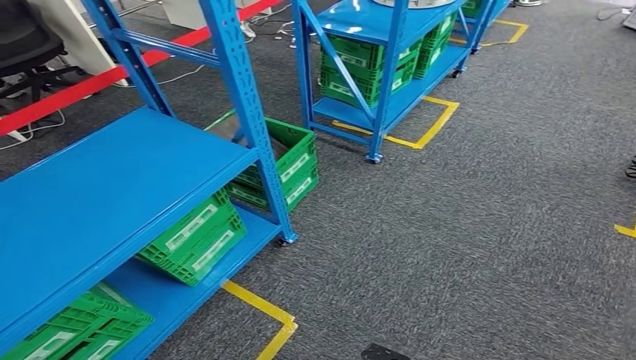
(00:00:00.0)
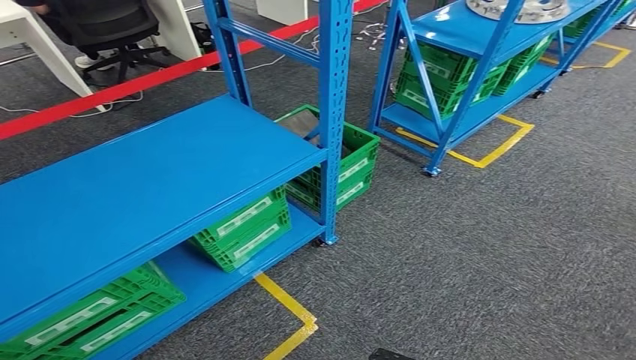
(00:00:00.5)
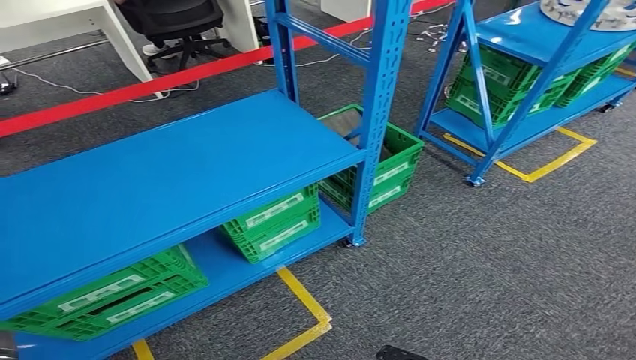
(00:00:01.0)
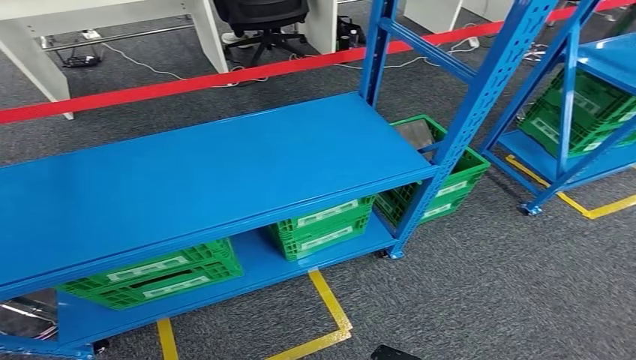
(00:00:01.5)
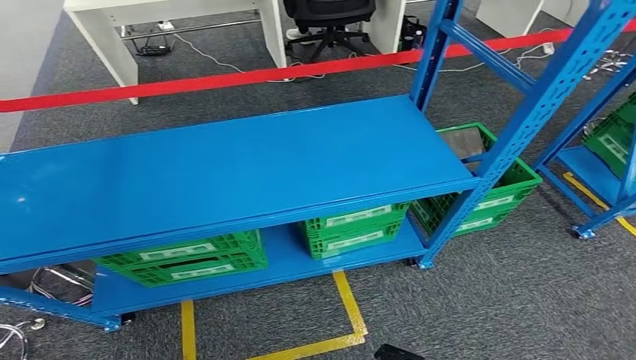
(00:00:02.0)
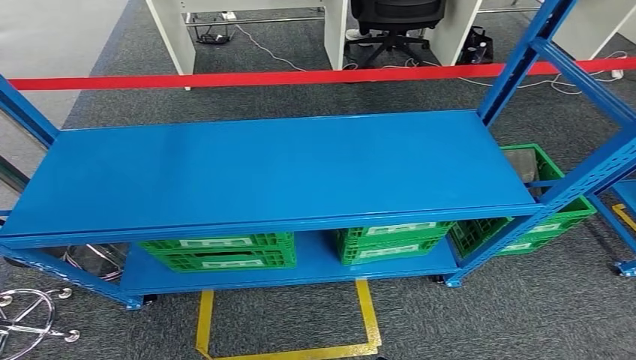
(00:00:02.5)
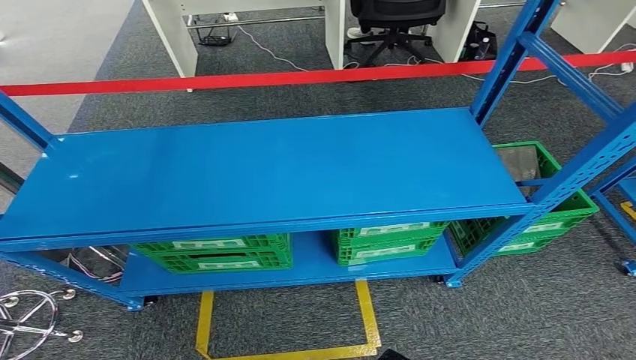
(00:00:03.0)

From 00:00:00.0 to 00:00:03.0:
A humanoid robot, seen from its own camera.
Step, from 00:00:00.0 to 00:00:03.0: Return to the initial position at the workbench.

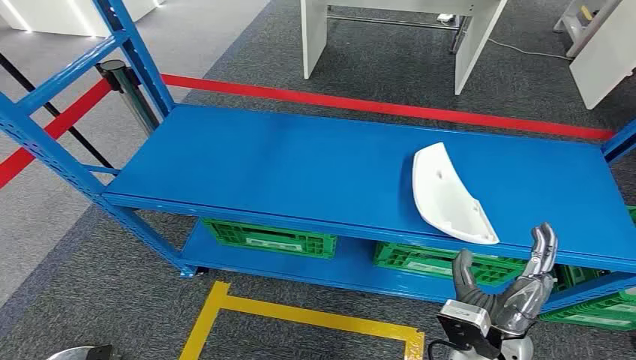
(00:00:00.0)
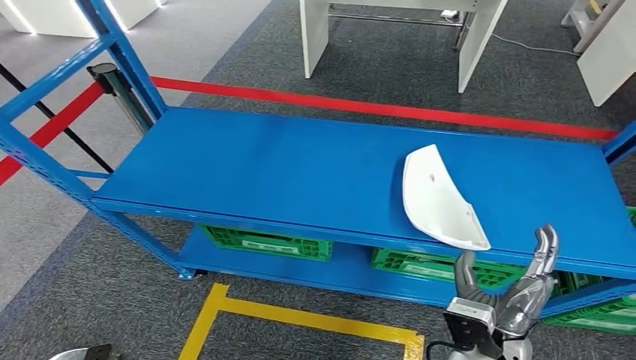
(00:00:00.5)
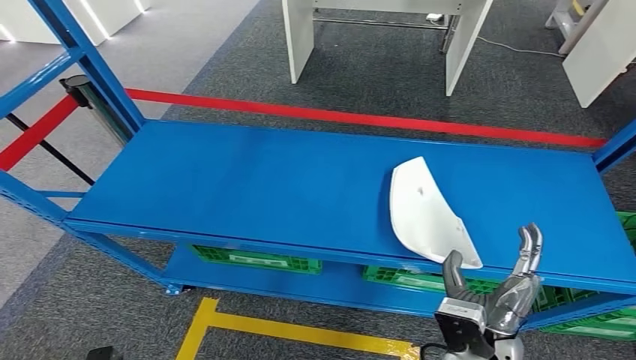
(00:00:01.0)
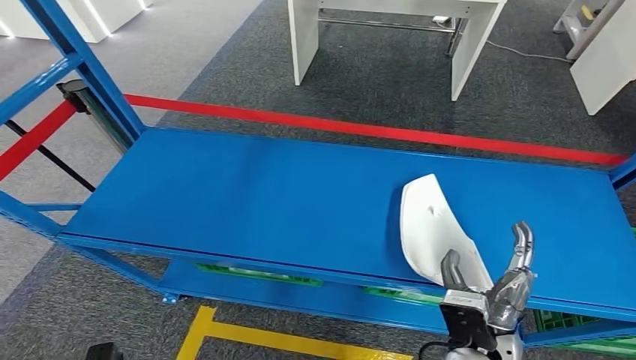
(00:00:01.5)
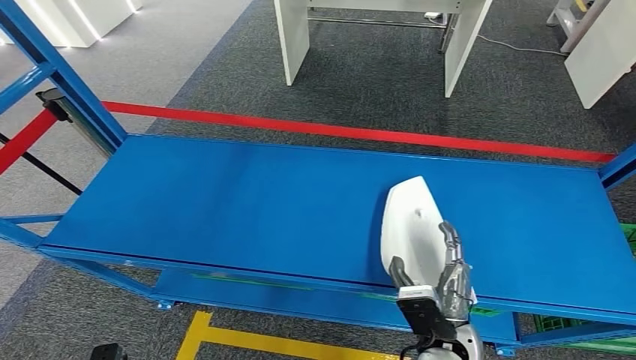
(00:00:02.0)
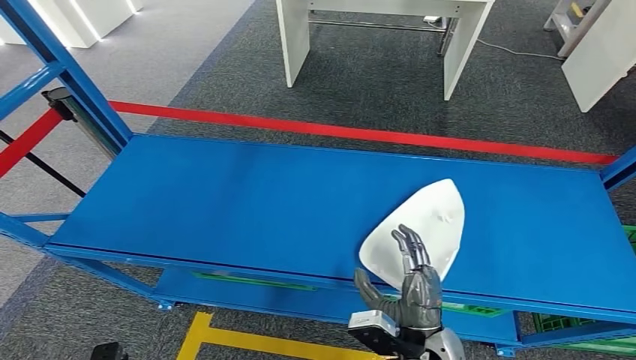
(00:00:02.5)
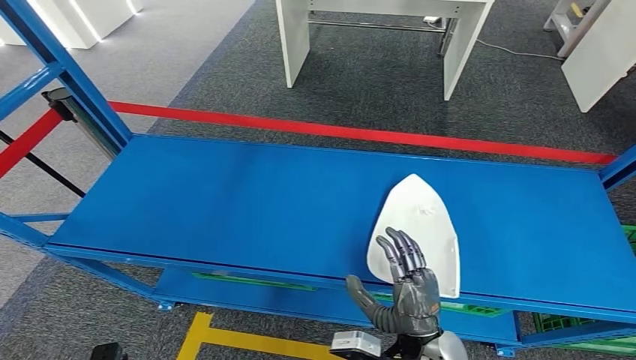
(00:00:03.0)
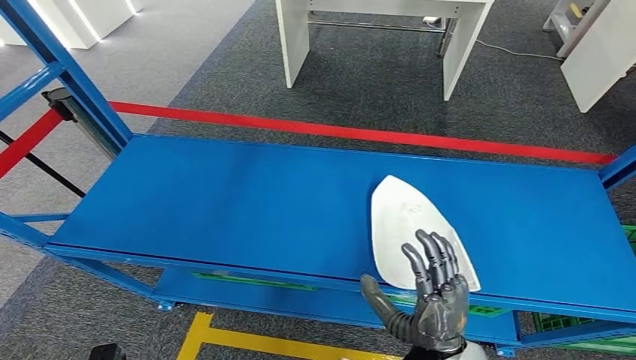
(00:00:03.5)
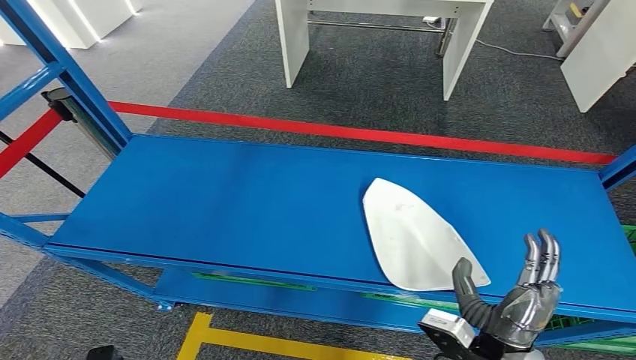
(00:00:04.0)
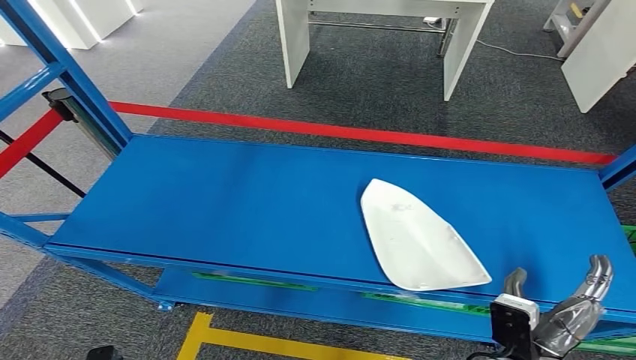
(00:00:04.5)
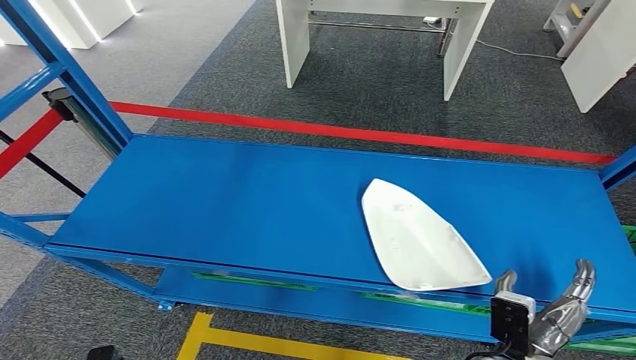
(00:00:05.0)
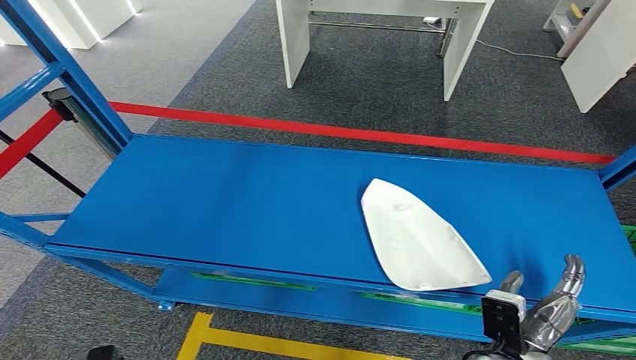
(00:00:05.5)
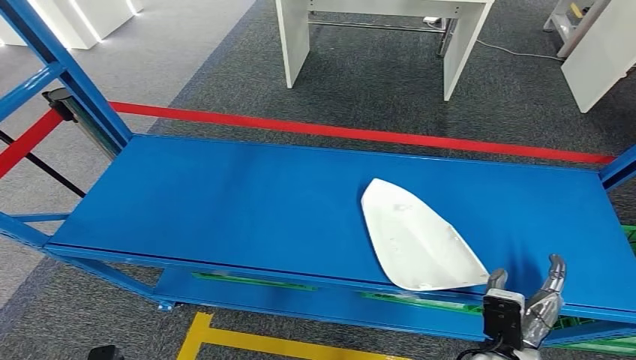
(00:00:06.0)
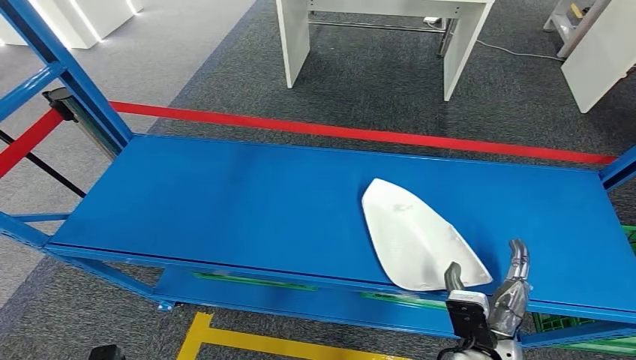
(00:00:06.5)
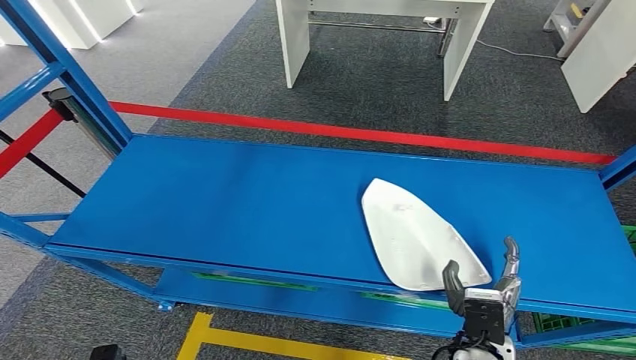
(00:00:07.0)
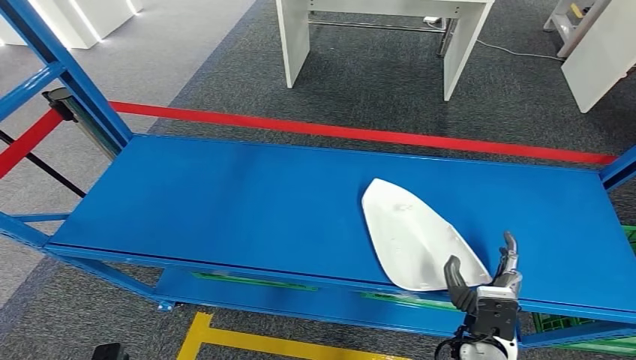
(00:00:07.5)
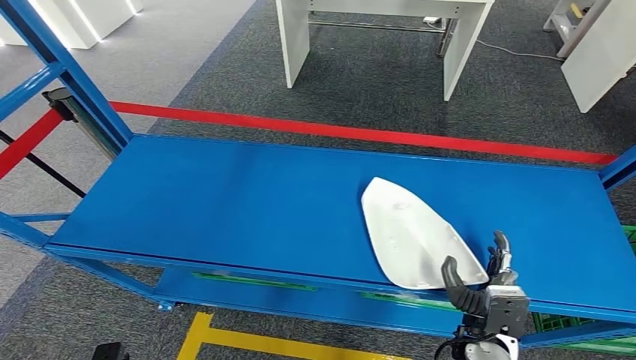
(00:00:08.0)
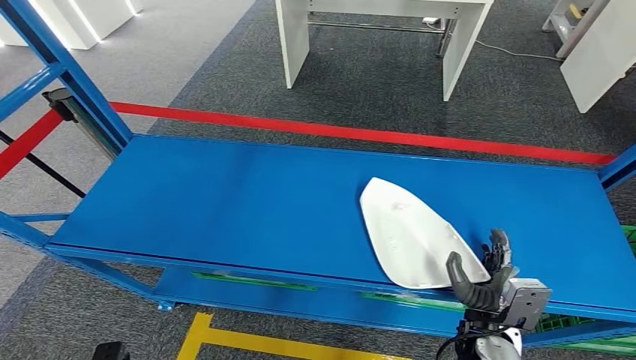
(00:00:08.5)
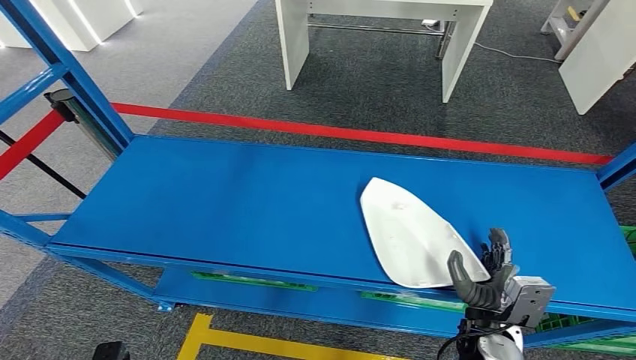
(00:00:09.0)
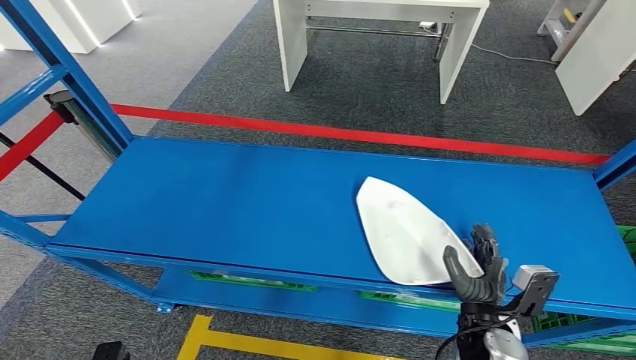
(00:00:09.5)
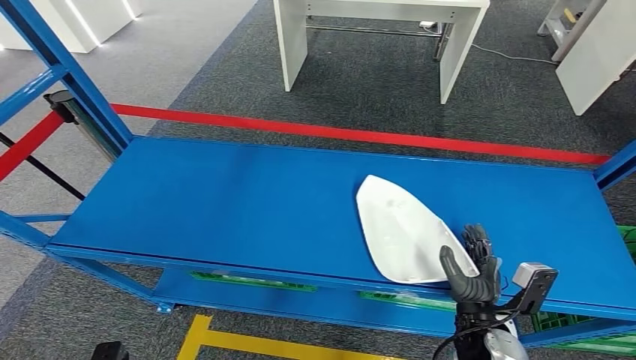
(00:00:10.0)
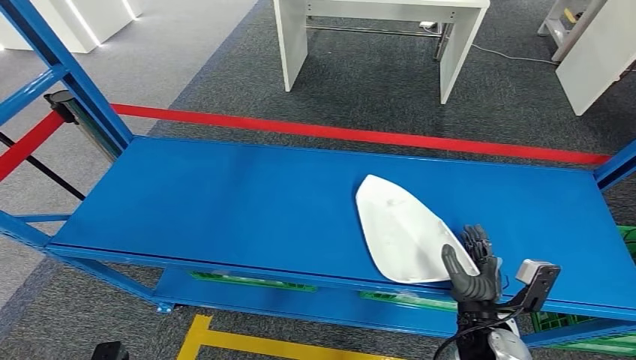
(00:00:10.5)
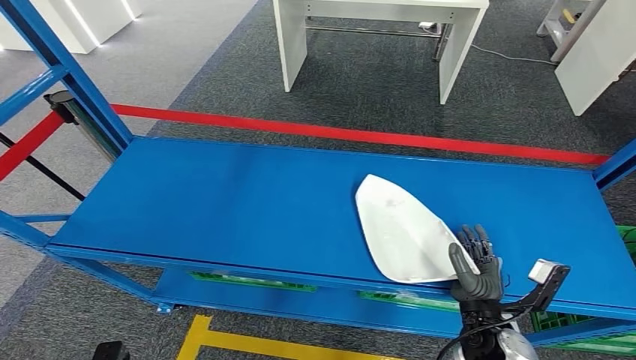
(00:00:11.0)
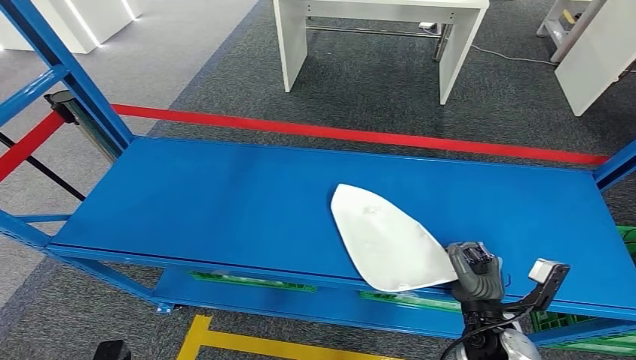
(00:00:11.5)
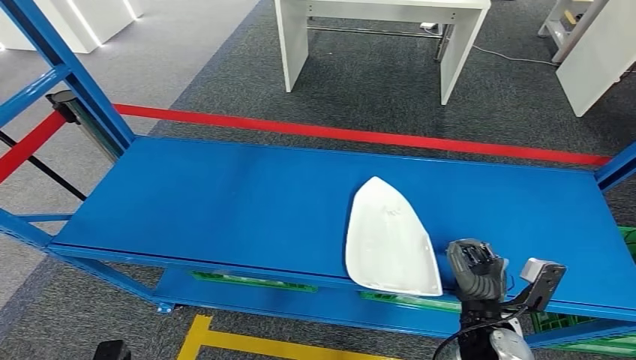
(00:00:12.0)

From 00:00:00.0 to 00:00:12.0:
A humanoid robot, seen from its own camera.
From 00:00:02.0 to 00:00:04.0: The right hand changes place by roughly 5 cm.
From 00:00:04.0 to 00:00:06.0: The right hand goes some 10 cm downward.
From 00:00:10.0 to 00:00:12.0: The hands stay close to where they were, moving slightly.

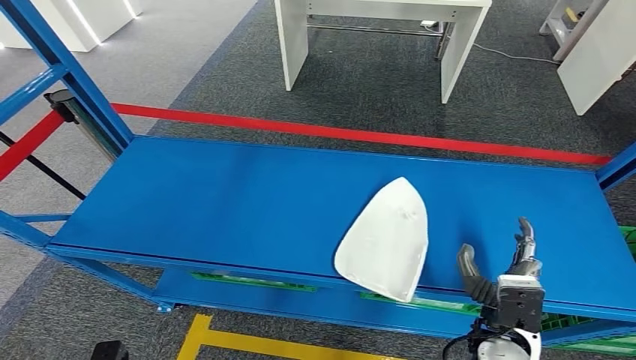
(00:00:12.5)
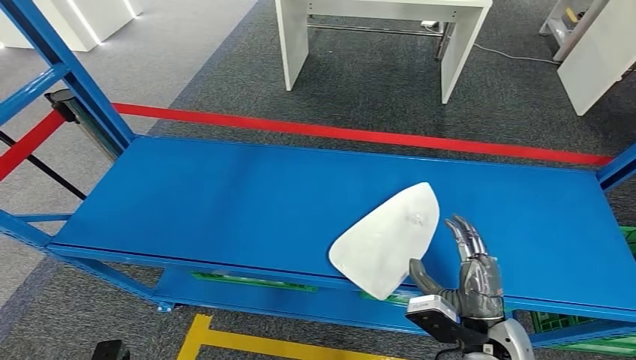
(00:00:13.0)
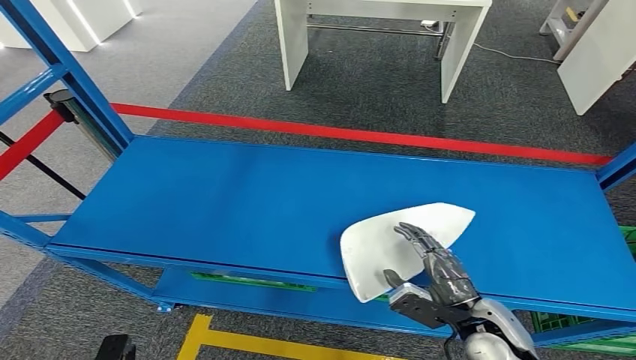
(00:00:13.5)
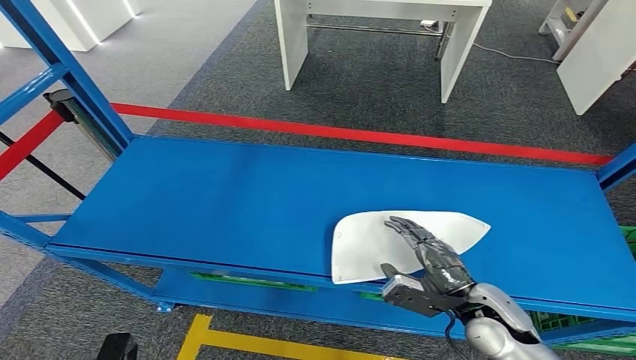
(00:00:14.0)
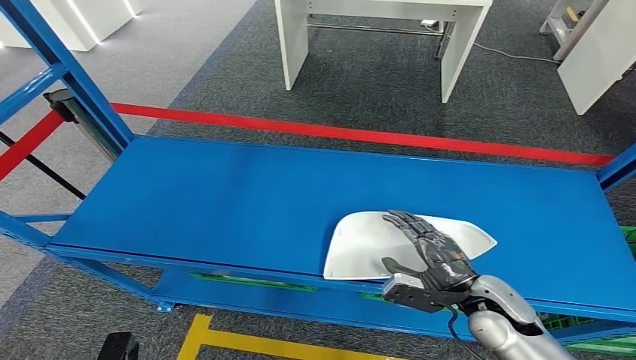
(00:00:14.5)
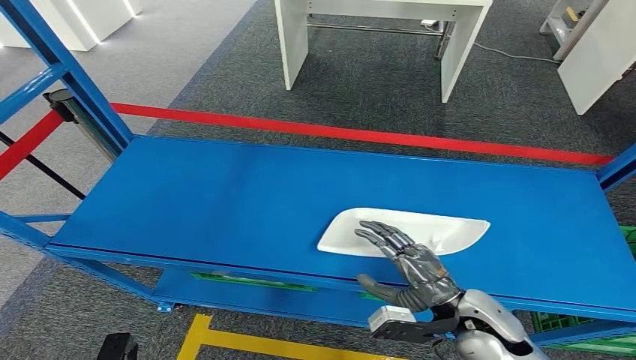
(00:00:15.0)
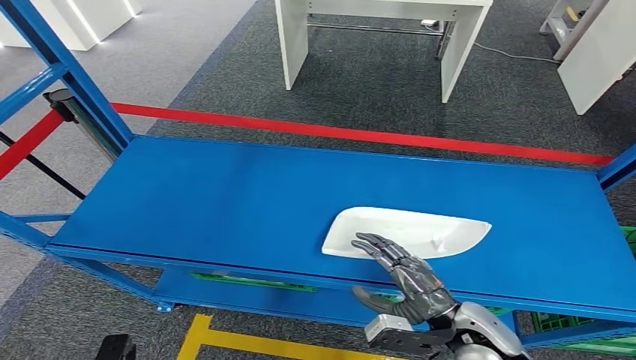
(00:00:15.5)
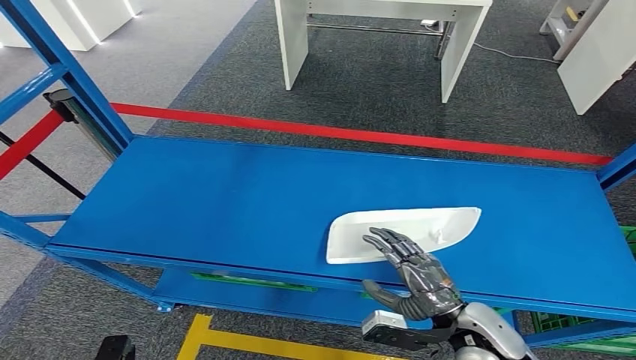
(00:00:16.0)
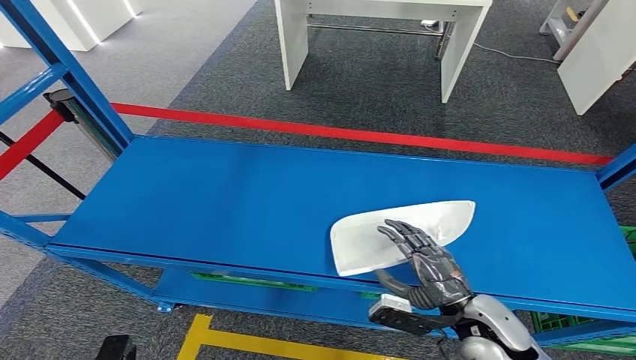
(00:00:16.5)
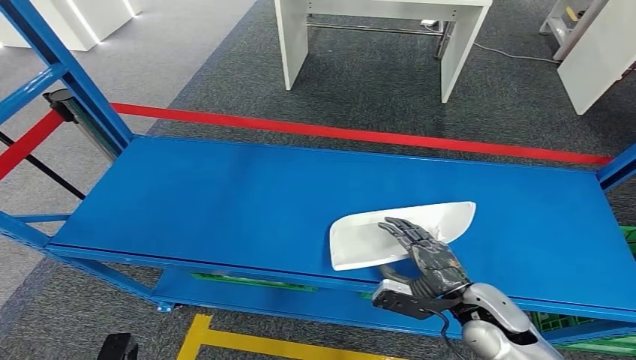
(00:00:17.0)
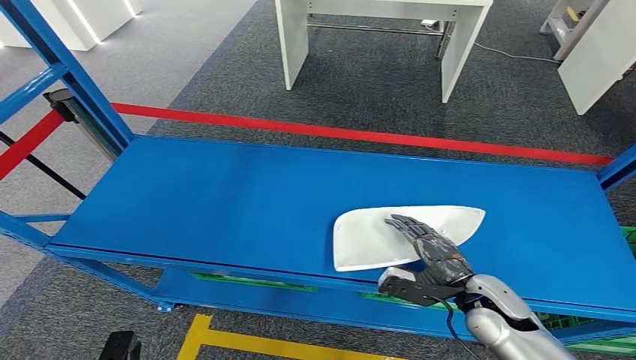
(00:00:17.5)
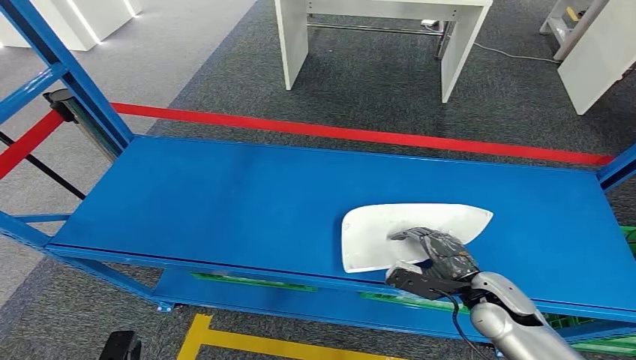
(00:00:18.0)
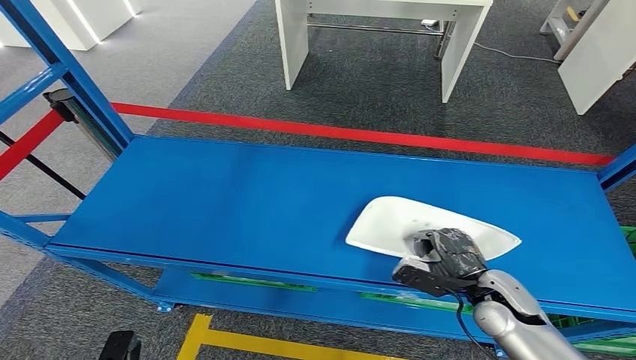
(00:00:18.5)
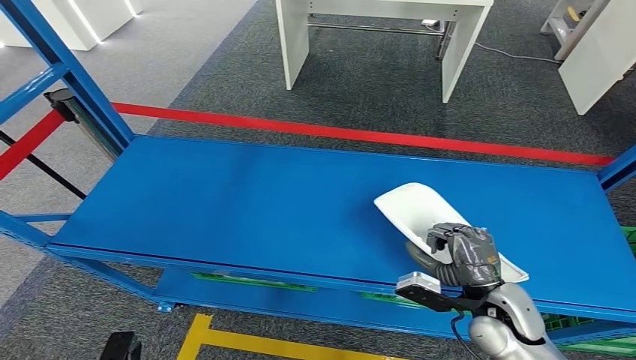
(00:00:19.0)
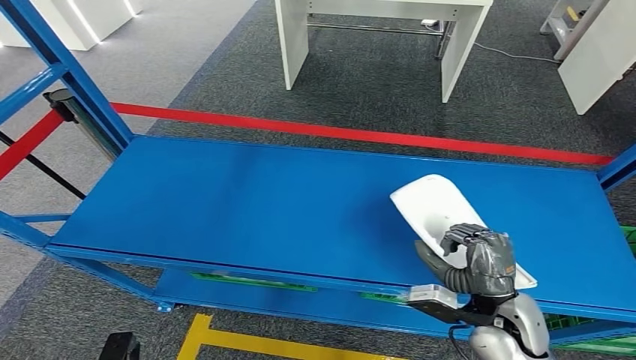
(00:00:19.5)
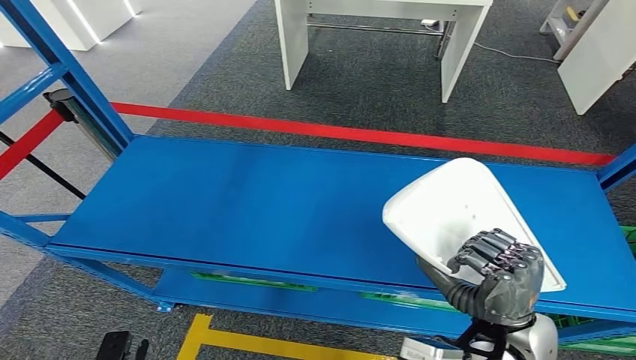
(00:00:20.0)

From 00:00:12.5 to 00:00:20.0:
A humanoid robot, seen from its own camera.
From 00:00:12.5 to 00:00:14.5: The right hand moves forward, approximately 5 cm.
From 00:00:16.5 to 00:00:18.0: The right hand moves about 5 cm.
From 00:00:18.0 to 00:00:20.0: The right hand travels upward, backward and to the left by some 10 cm.
